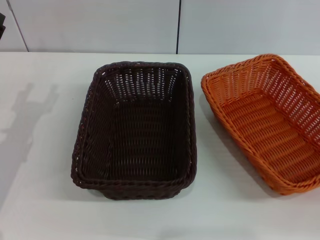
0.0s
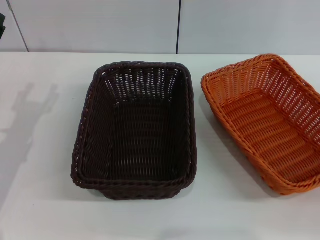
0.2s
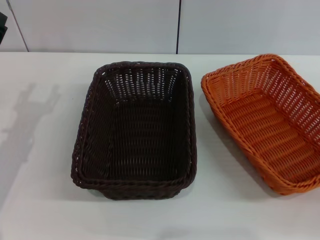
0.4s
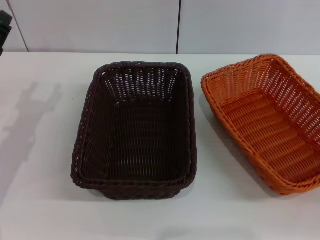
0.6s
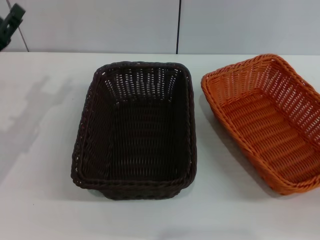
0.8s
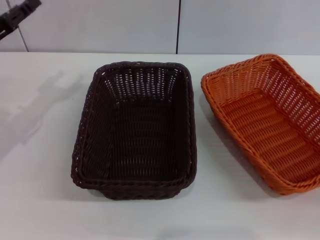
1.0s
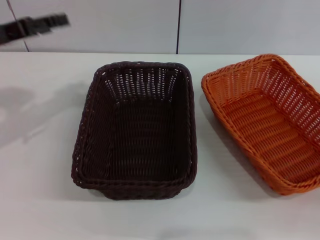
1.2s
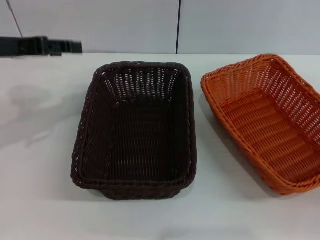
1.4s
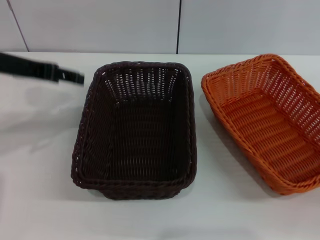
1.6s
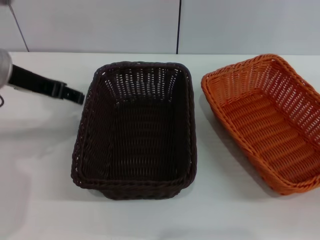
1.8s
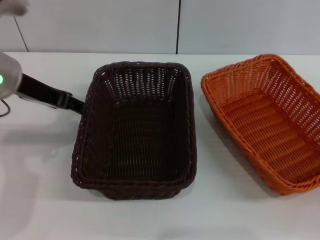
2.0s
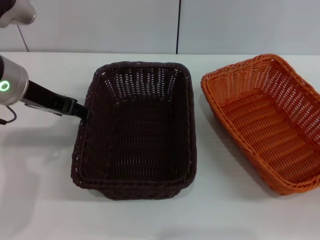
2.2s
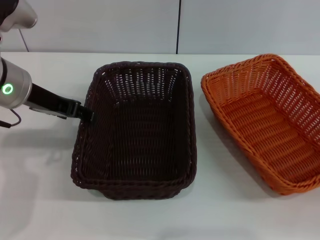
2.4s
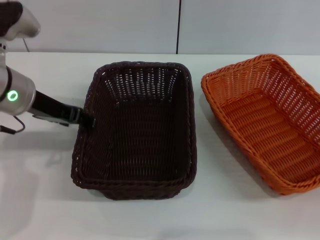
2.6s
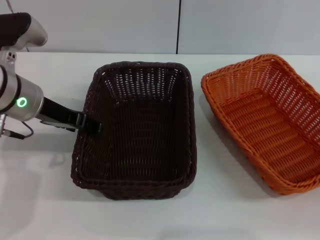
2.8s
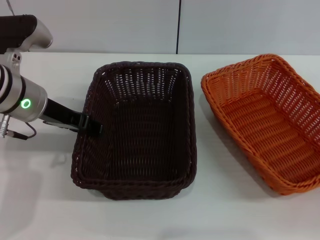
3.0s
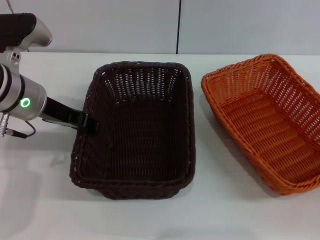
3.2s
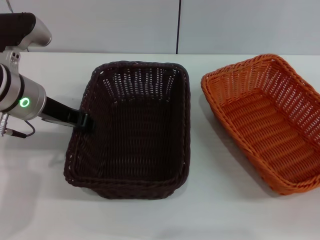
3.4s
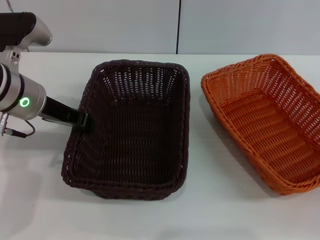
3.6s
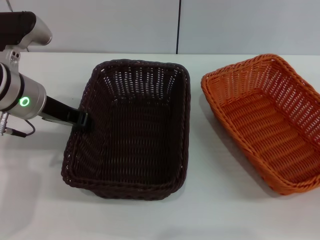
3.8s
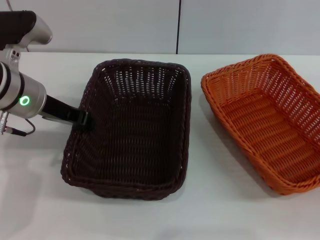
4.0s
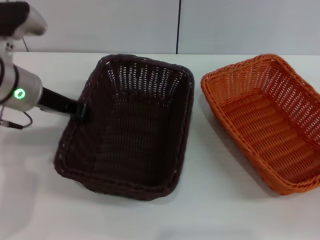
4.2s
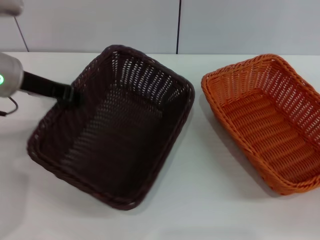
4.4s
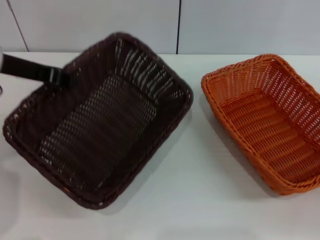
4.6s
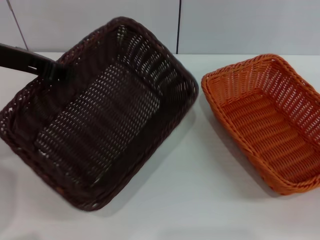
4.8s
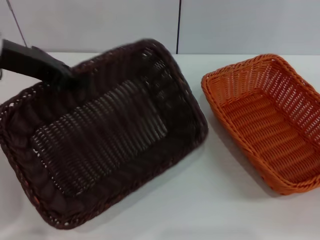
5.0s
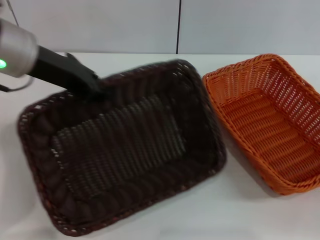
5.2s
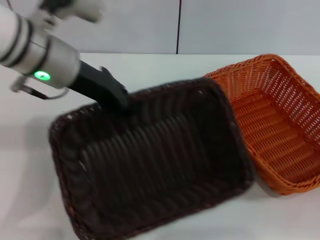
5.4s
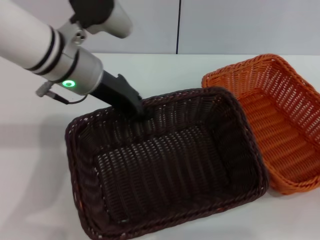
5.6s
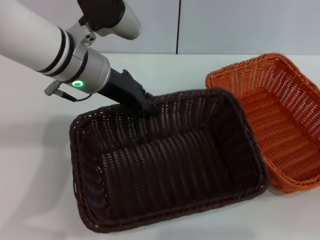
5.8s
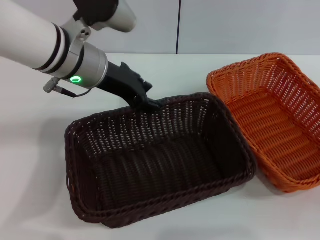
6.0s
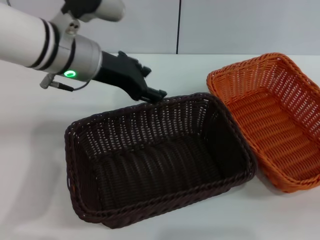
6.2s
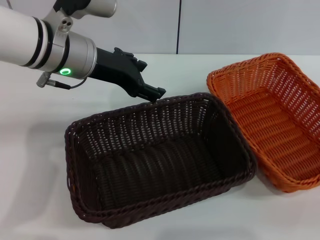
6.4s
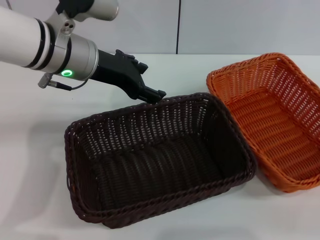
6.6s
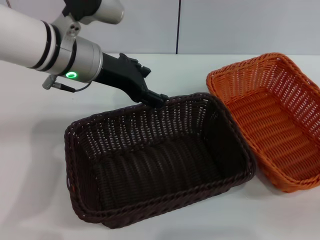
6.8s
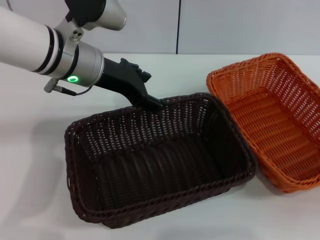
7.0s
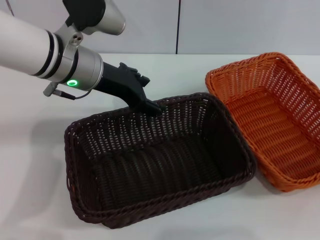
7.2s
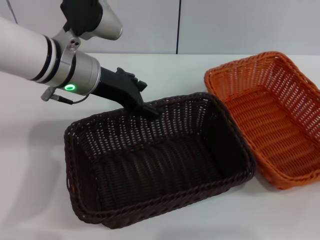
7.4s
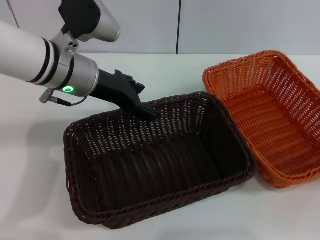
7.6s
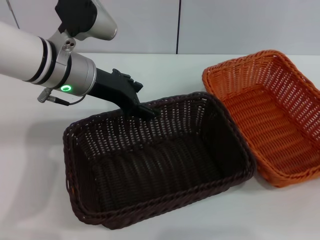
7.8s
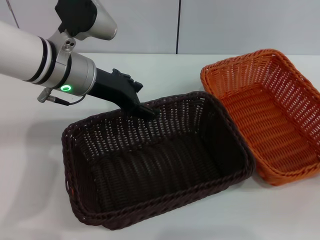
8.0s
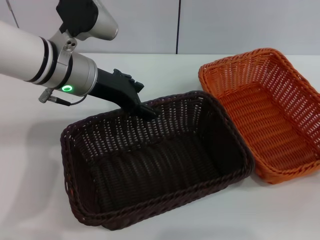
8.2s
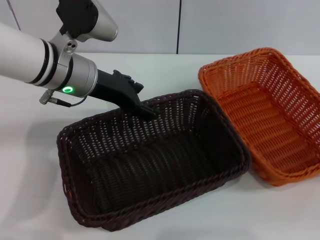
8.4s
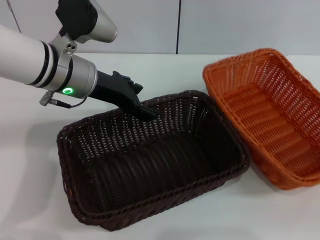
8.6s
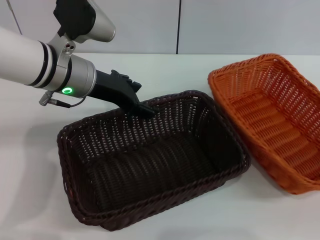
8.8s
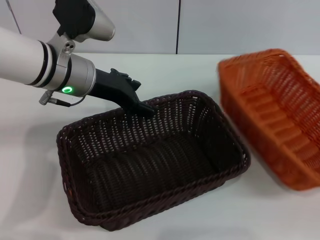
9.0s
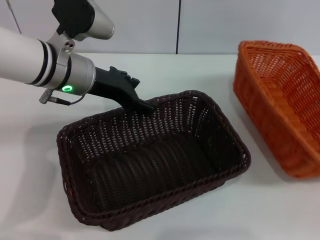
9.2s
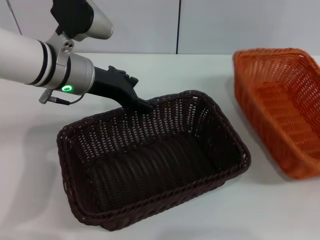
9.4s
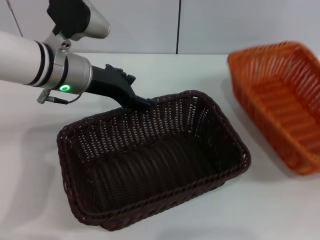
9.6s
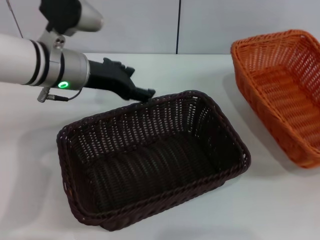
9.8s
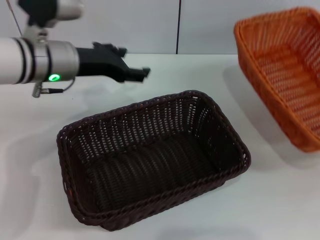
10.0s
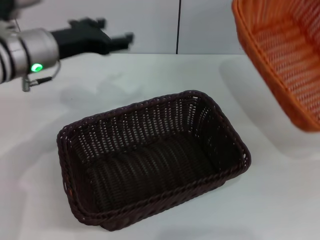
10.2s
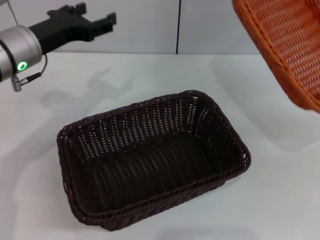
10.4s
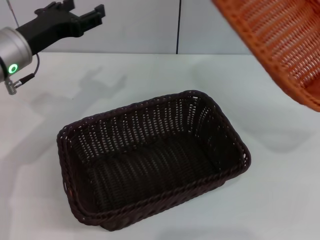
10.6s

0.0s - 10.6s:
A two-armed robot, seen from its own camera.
Step, 0.0s - 4.4s: Pick up the dark basket with the left gripper.
Step, 4.6s - 6.0s: Place the dark basket in the center of view with the left gripper.
Step, 6.2s - 9.0s: Pick up the light basket with the right gripper.
0.0s - 1.6s: The left gripper travels upward by approximately 15 cm.
1.6s - 3.0s: The left gripper heads downward and to the right, covering about 10 cm.
3.0s - 4.6s: The left gripper is displaced upward by some 5 cm, and closes up.
4.6s - 6.0s: The left gripper moves to the right, roughly 10 cm.
6.0s - 7.6s: The right gripper travels upward by approximately 10 cm, while the left gripper opens its fingers.
7.6s - 9.0s: The right gripper closes up.
9.0s - 10.6s: The right gripper heads upward, covering roughly 10 cm. The left gripper shifts some 10 cm to the left.

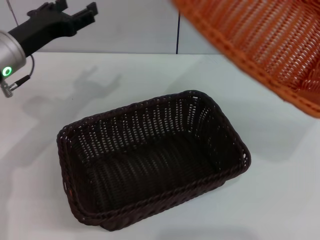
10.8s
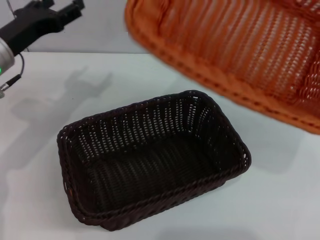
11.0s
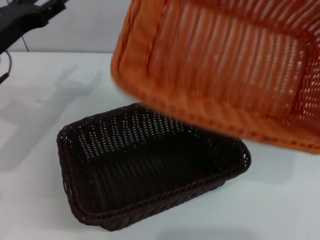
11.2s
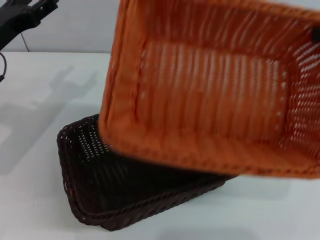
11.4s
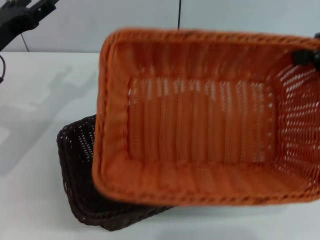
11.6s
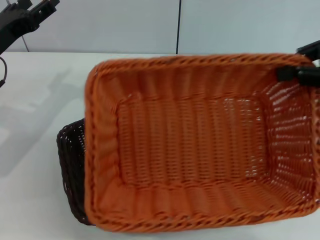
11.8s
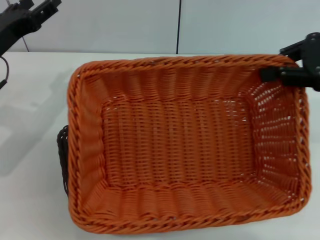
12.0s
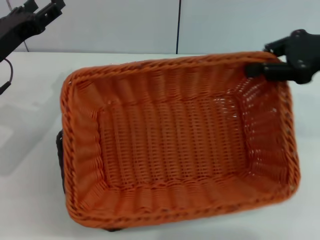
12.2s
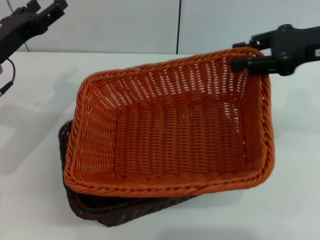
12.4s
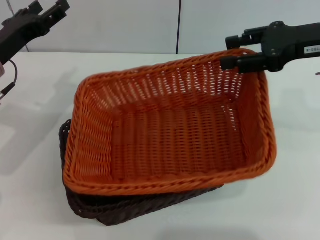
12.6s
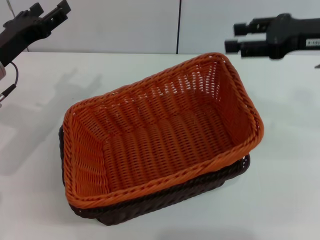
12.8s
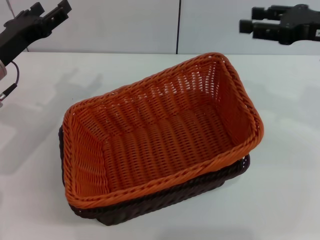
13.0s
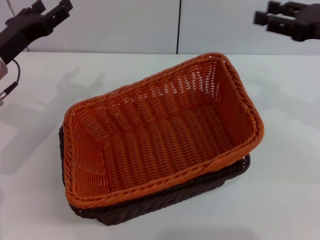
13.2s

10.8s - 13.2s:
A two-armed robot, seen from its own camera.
Step, 10.8s - 12.6s: Place the light basket on the dark basket with the right gripper.
10.8s - 12.0s: The right gripper heads to the left, covering about 10 cm.
12.0s - 13.2s: The right gripper changes place by approximately 5 cm, and opens up.

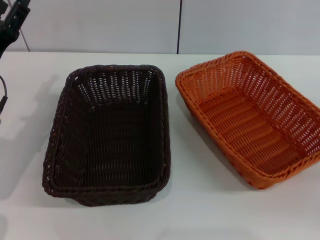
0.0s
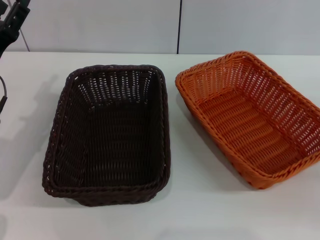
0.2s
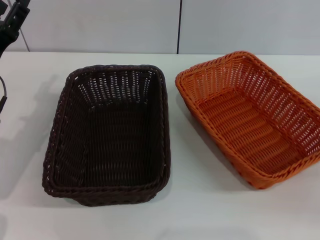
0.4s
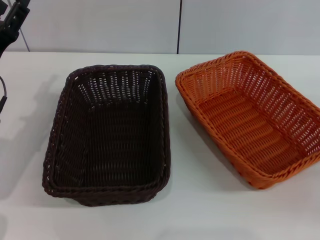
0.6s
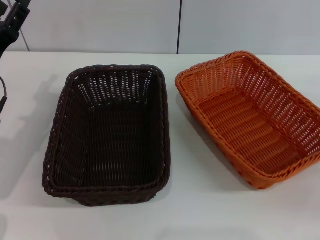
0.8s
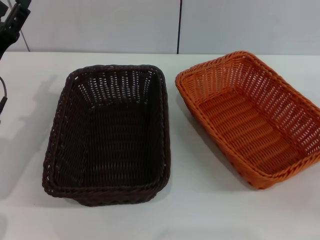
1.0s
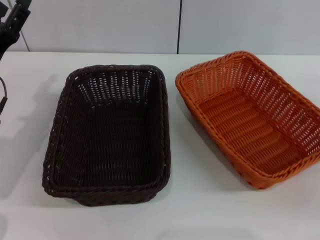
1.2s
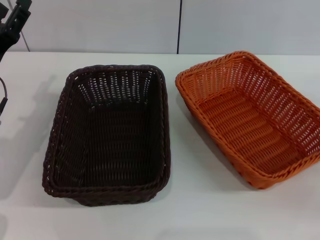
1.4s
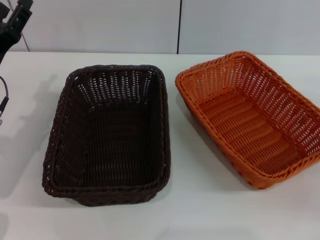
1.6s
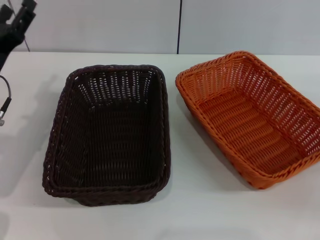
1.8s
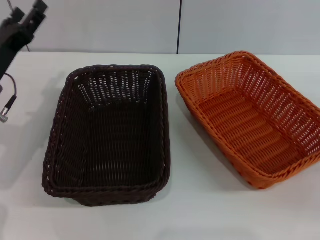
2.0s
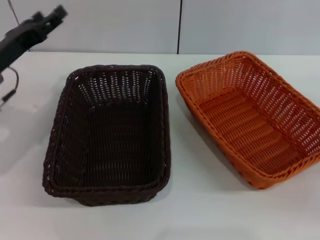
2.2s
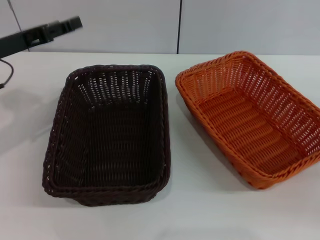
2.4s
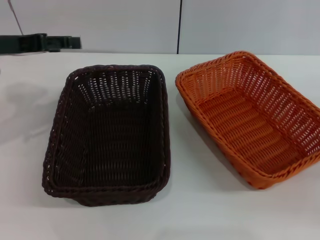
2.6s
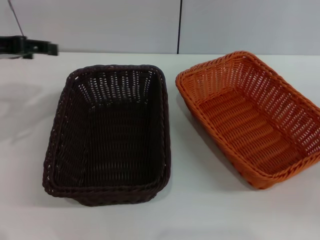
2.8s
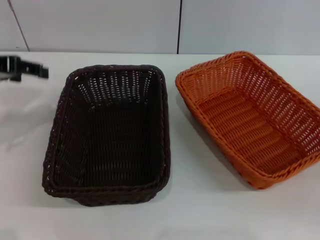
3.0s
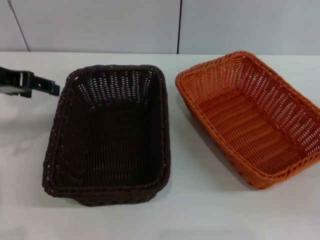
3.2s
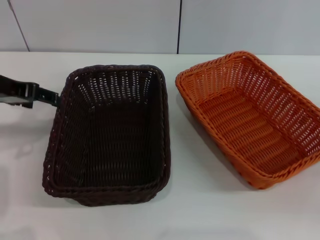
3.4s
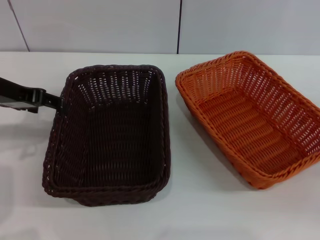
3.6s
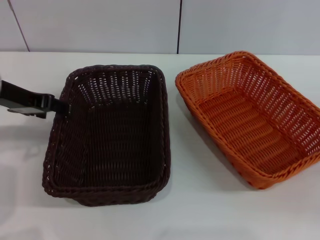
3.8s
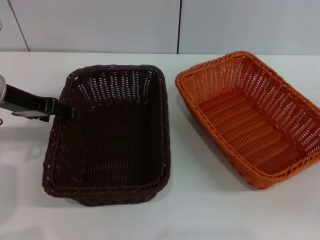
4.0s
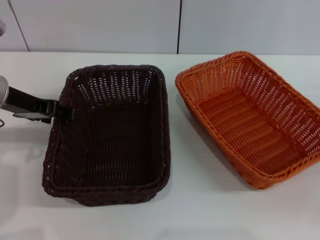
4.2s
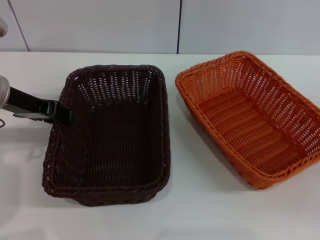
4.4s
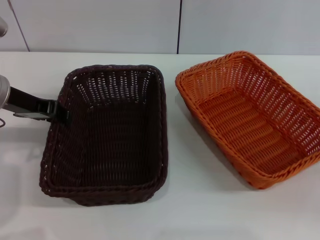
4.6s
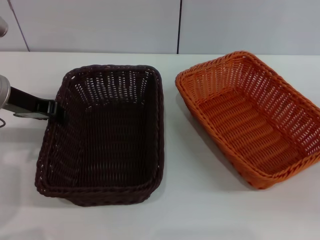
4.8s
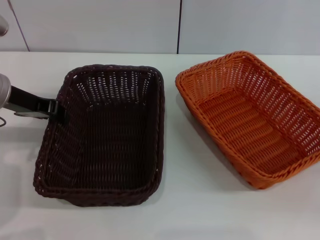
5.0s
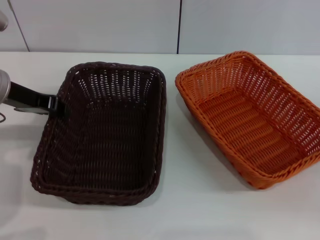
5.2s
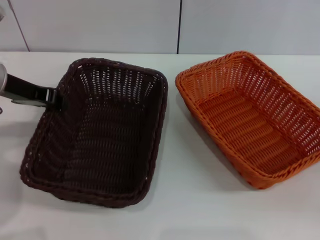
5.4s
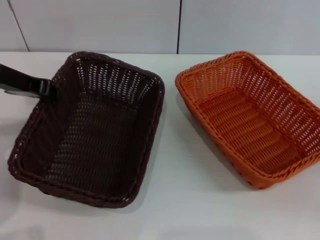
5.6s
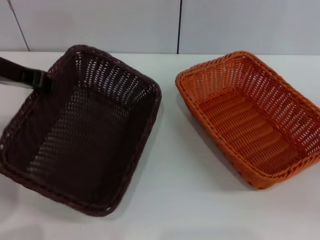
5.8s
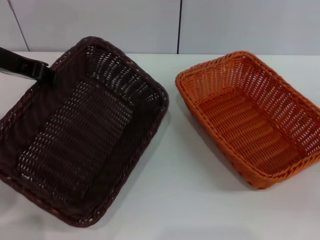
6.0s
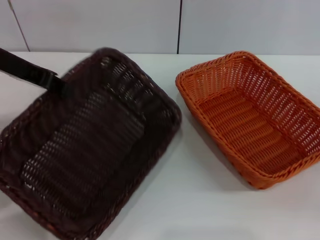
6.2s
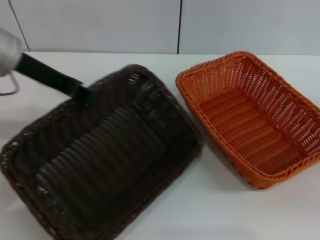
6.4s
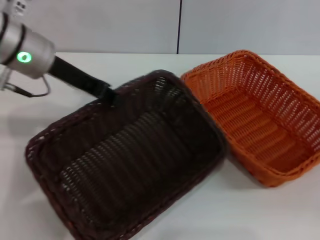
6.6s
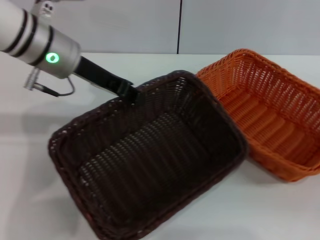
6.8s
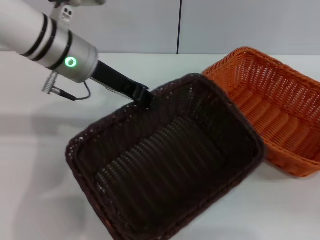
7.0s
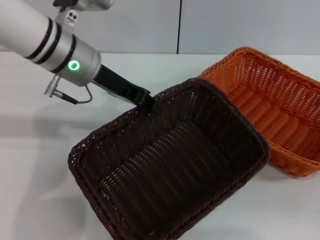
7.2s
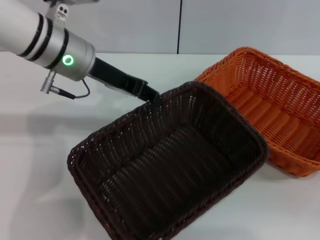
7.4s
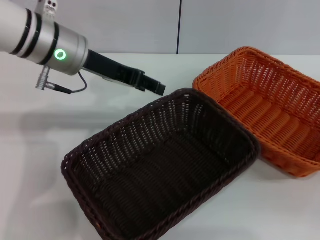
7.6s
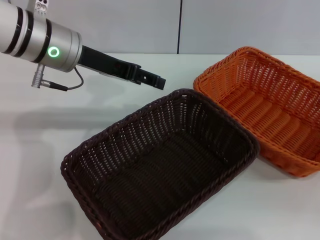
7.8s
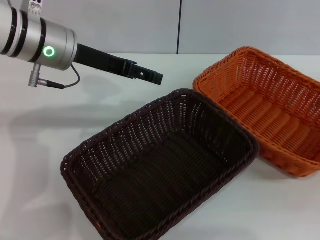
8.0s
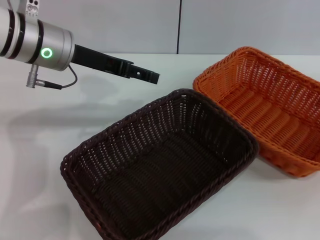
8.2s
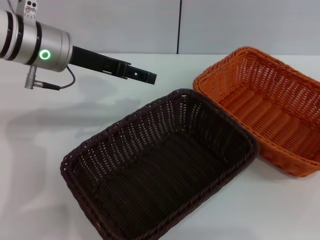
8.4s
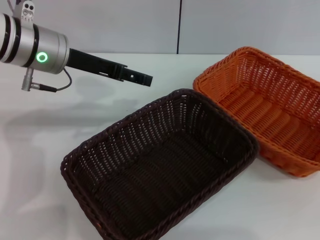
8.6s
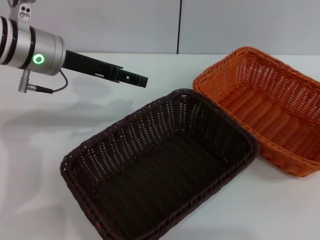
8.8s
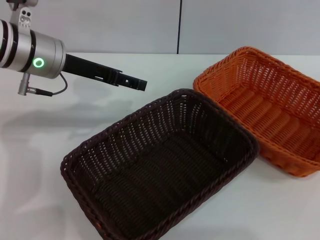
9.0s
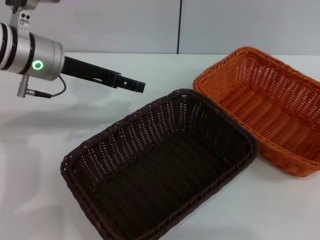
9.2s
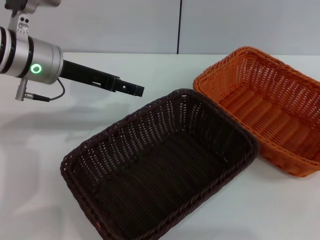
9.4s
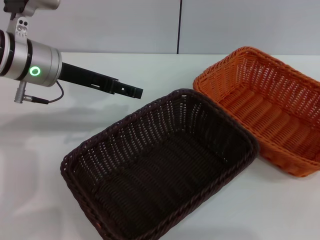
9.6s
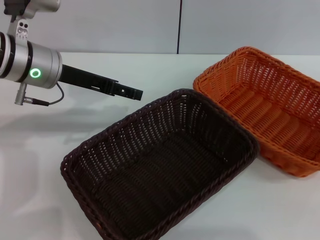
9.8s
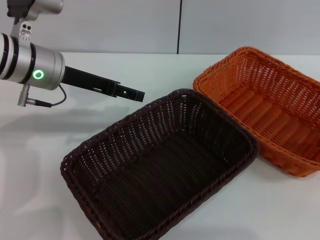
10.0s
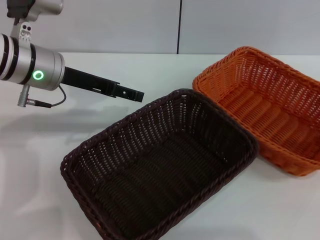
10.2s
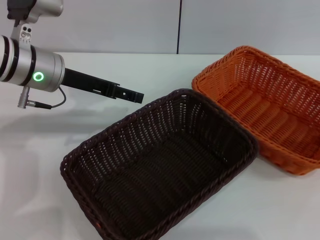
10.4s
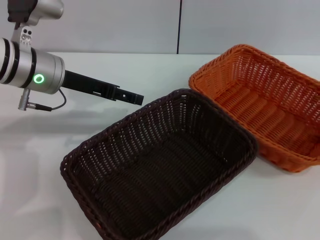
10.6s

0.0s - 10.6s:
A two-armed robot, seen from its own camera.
Step, 0.0s - 5.8s: Pick up the dark basket with the left gripper.
Step, 6.0s - 7.6s: Place the dark basket in the center of view with the left gripper.
1.6s - 3.0s: The left gripper moves upward, approximately 15 cm.
3.0s - 4.6s: The left gripper goes approximately 5 cm downward.
4.6s - 6.0s: The left gripper shifts approximately 10 cm upward, and closes up.
6.0s - 7.6s: The left gripper heads to the right, covering approximately 10 cm, and opens its fingers.
7.6s - 9.0s: The left gripper opens. Meanwhile the right gripper shifts some 20 cm upward.
9.0s - 10.6s: The right gripper travels downward by roughly 10 cm.
